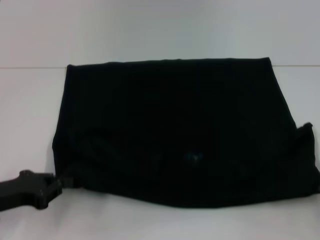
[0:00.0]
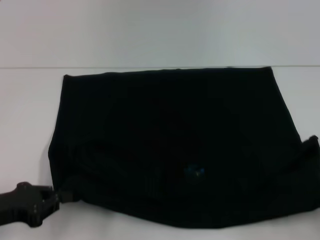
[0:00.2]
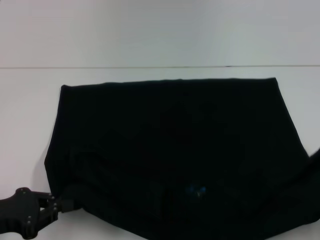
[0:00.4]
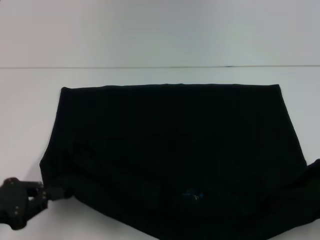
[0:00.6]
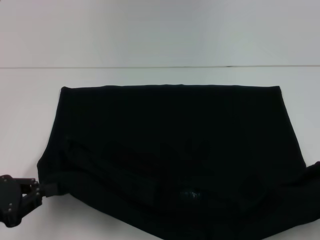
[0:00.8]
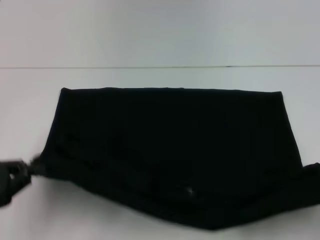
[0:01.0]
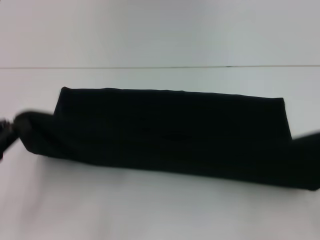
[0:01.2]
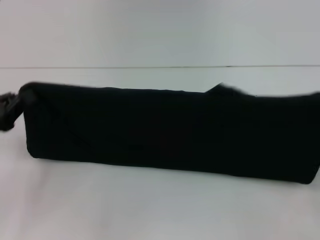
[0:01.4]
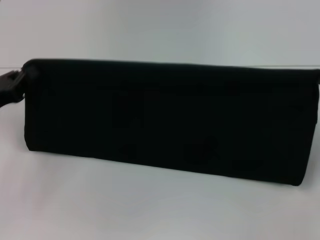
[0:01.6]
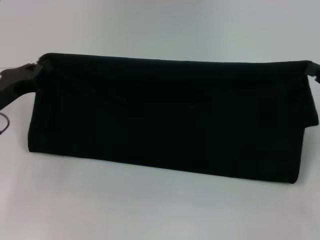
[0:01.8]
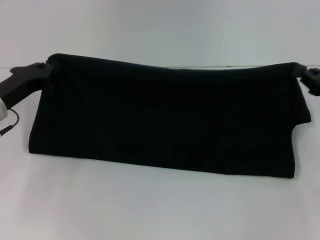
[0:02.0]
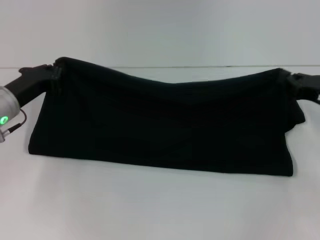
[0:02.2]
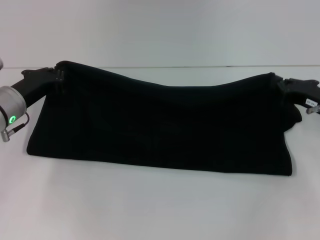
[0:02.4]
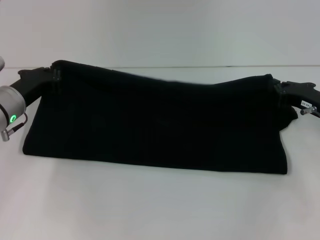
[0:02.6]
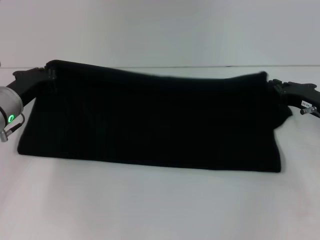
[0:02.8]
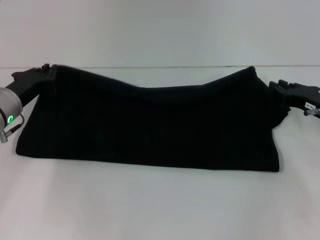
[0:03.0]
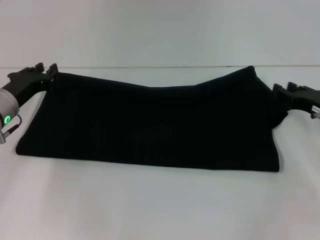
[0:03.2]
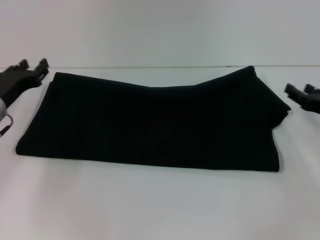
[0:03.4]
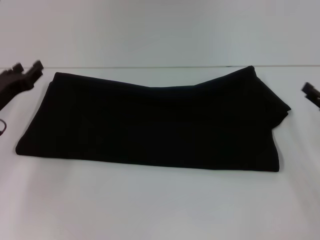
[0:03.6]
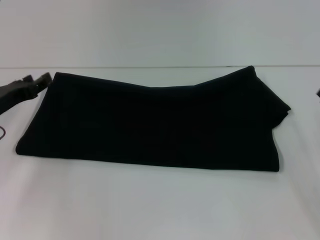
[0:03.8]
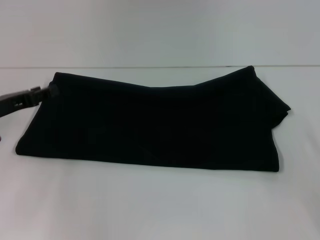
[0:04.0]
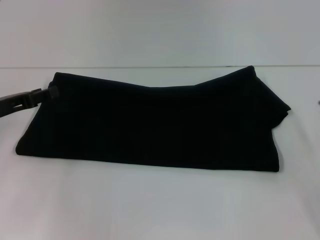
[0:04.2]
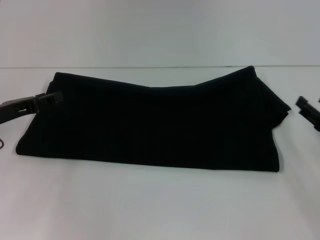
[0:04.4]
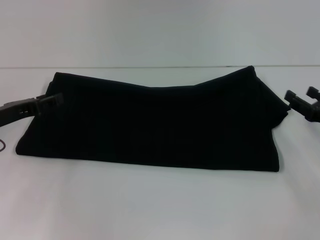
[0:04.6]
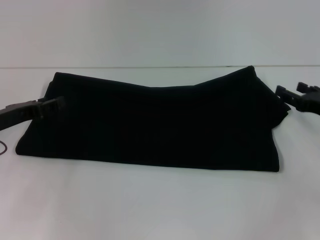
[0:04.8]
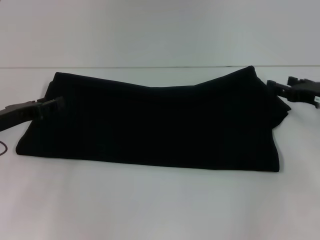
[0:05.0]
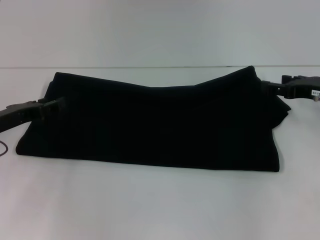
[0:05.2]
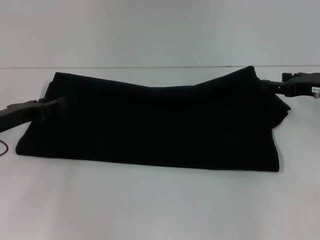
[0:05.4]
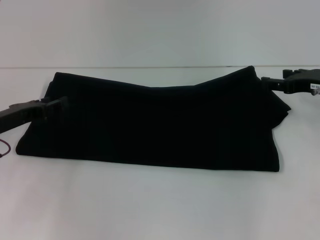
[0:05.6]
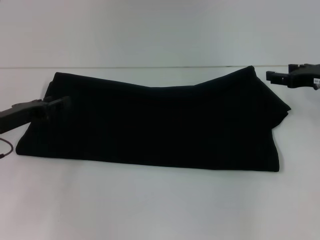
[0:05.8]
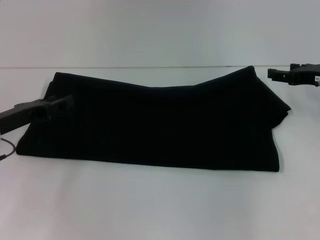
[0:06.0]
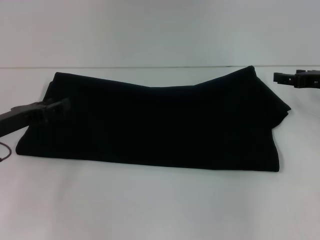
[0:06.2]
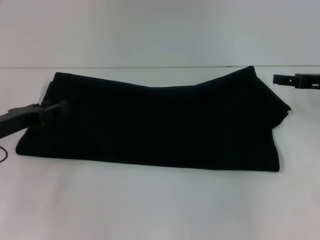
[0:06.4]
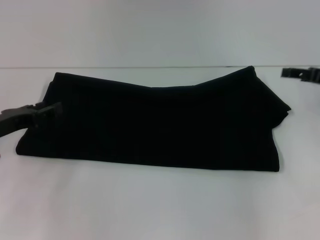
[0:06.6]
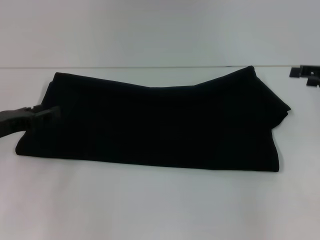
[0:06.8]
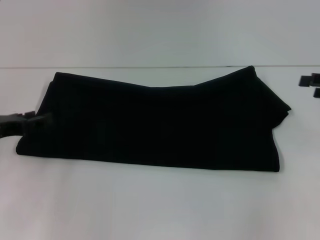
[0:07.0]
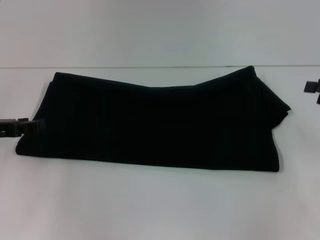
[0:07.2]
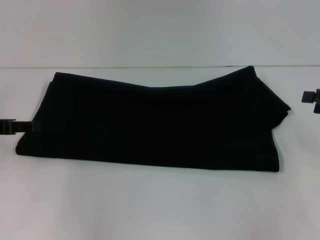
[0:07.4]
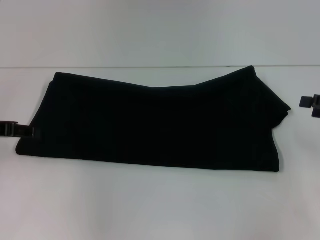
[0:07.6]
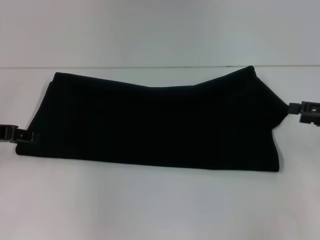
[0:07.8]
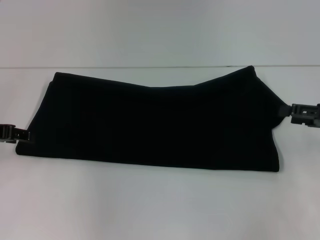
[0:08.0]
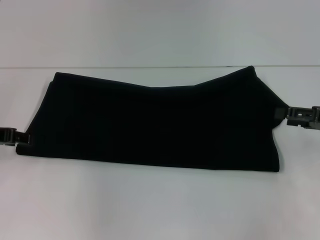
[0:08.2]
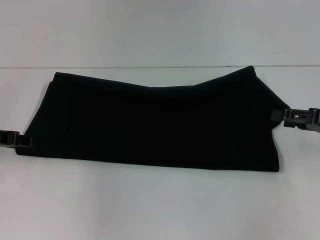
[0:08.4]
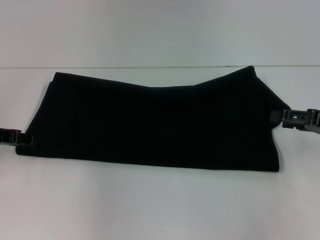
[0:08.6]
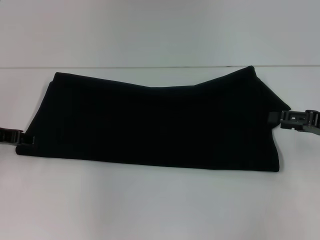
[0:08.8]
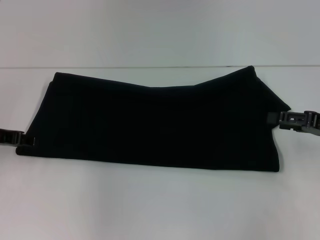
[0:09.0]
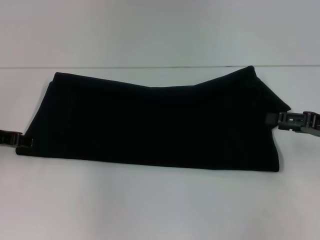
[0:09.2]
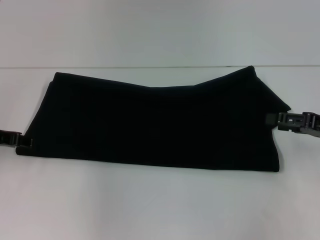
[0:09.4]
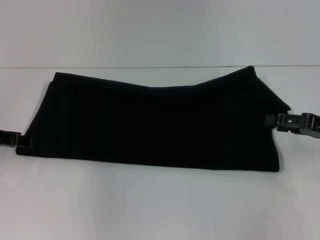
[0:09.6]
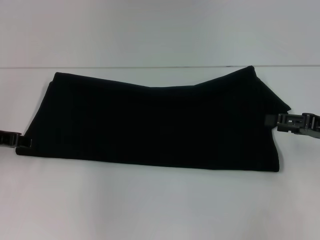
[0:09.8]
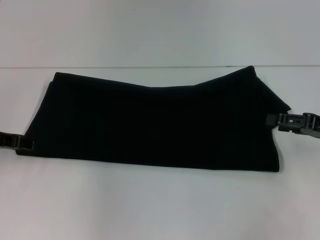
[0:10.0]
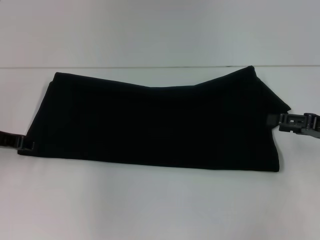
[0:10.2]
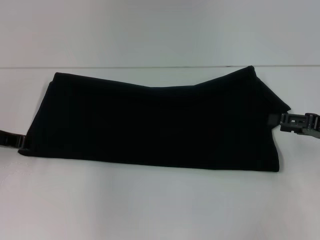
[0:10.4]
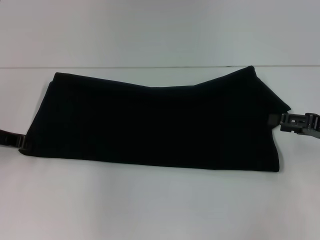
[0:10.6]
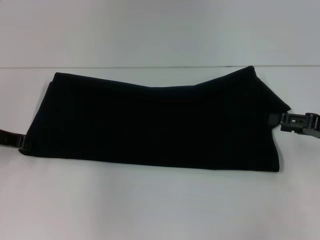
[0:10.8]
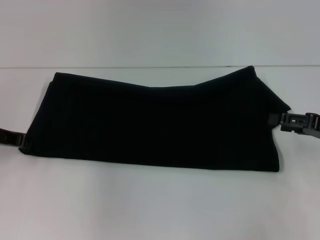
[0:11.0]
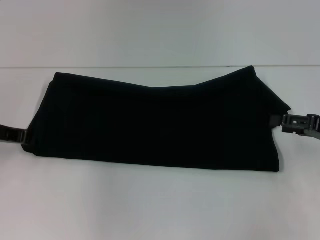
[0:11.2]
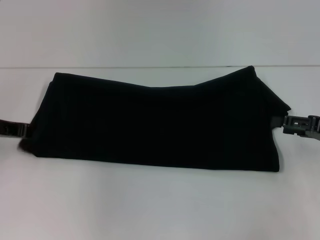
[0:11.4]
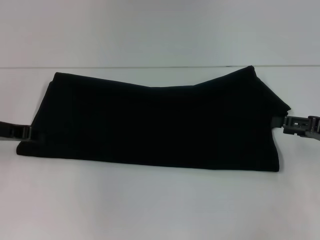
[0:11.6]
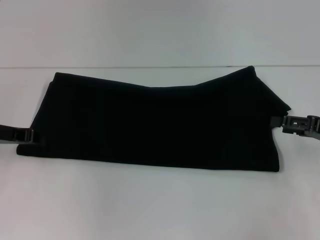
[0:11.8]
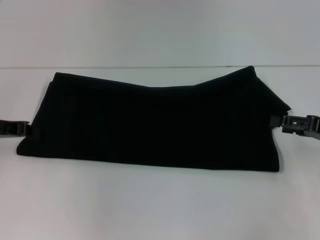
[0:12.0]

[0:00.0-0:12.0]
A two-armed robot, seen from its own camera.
Step, 0:00.4 to 0:03.2: Fold the clothes with your right hand.
0:00.0 to 0:01.6: The right gripper travels forward and upward by about 10 cm, while the left gripper is displaced forward by some 5 cm.
0:01.6 to 0:03.0: The right gripper goes about 10 cm to the left, forward and downward; the left gripper travels forward and to the right by some 10 cm.
0:03.0 to 0:04.4: The right gripper goes about 5 cm backward, and opens. The left gripper ends up roughly 5 cm from where it was, and opens.
0:04.4 to 0:06.0: The right gripper goes about 15 cm forward and upward.
0:06.0 to 0:07.6: The right gripper goes roughly 10 cm backward and to the right, while the left gripper goes approximately 5 cm upward.
0:07.6 to 0:09.0: The grippers stay close to where they were, moving slightly.
0:09.0 to 0:10.4: Neither gripper changes place.
0:10.4 to 0:12.0: The left gripper closes its fingers.

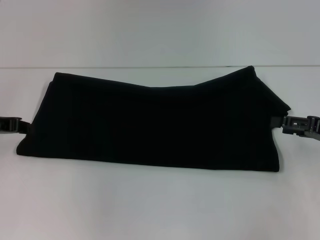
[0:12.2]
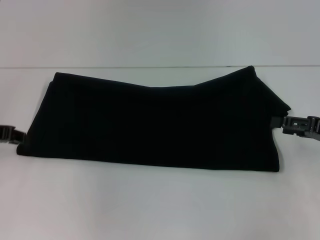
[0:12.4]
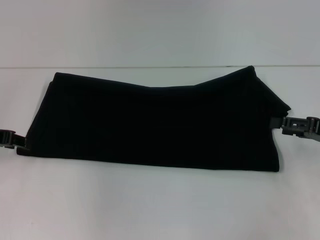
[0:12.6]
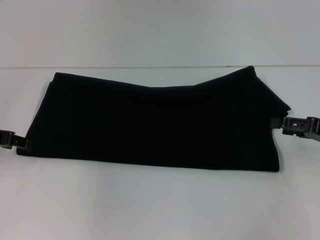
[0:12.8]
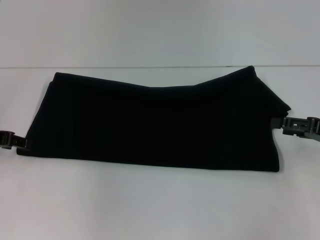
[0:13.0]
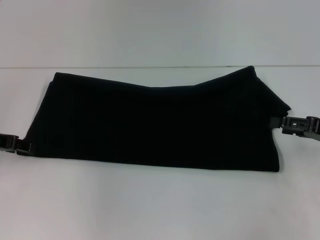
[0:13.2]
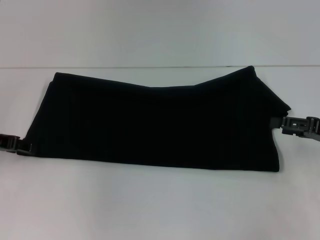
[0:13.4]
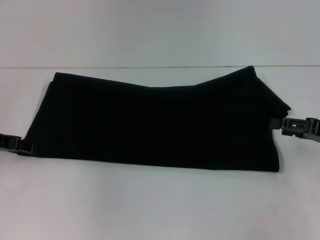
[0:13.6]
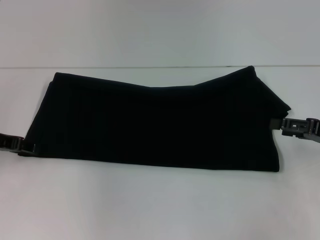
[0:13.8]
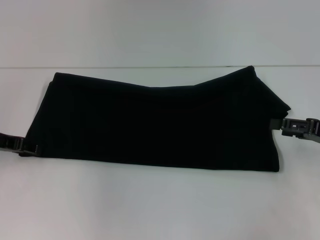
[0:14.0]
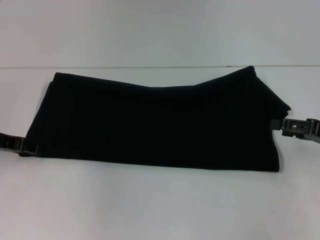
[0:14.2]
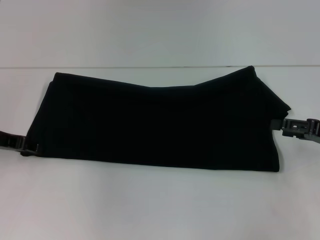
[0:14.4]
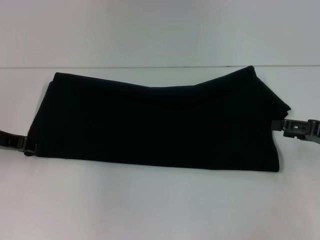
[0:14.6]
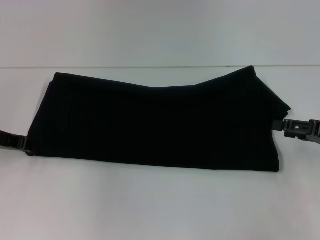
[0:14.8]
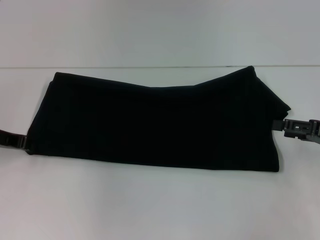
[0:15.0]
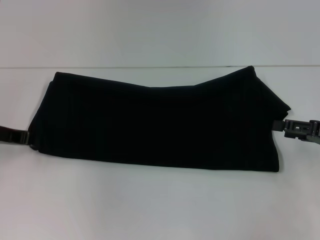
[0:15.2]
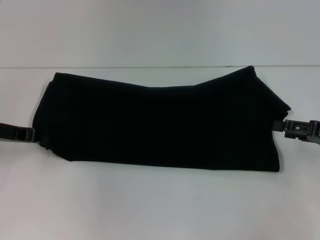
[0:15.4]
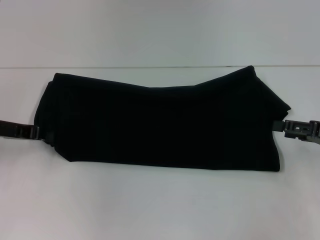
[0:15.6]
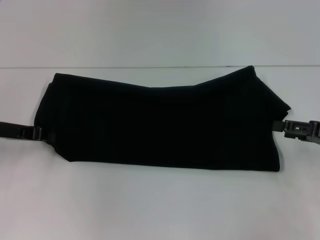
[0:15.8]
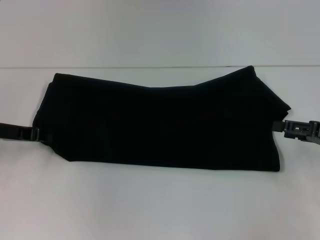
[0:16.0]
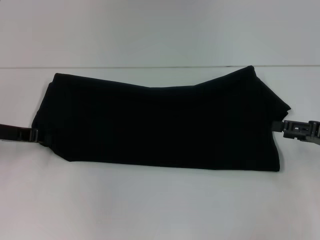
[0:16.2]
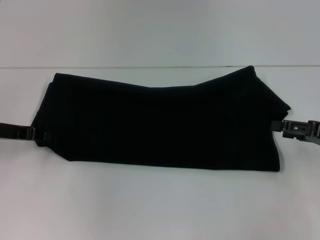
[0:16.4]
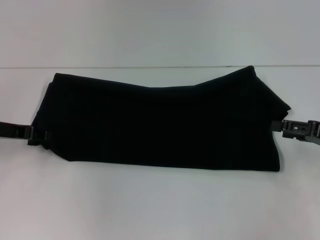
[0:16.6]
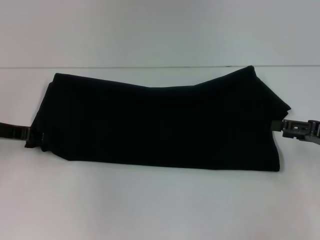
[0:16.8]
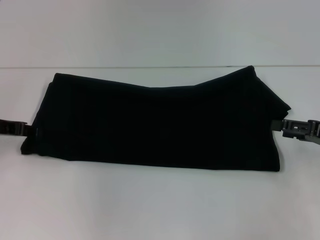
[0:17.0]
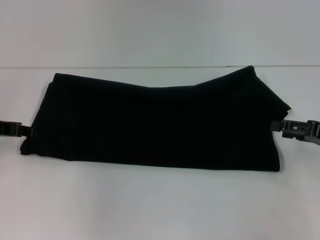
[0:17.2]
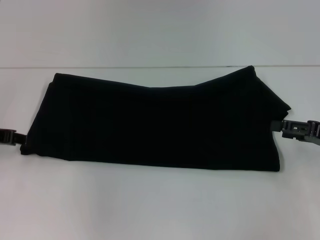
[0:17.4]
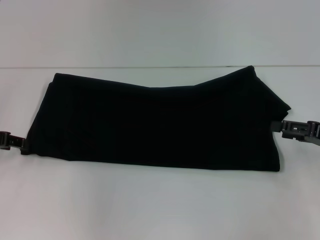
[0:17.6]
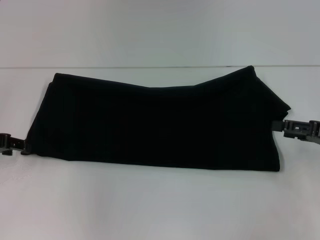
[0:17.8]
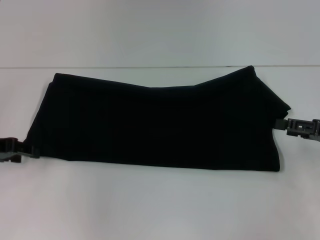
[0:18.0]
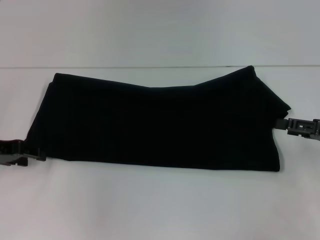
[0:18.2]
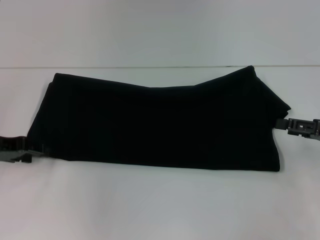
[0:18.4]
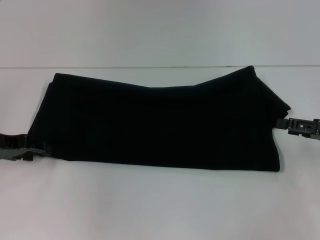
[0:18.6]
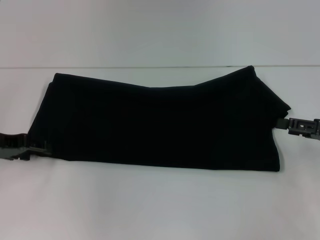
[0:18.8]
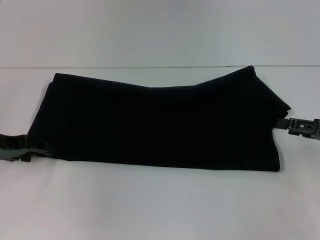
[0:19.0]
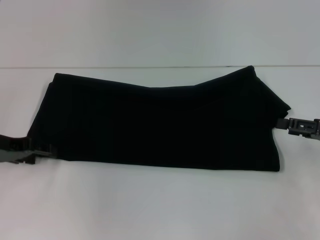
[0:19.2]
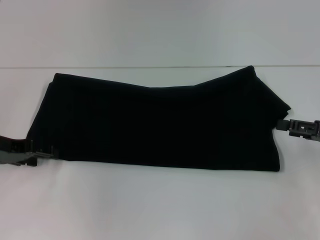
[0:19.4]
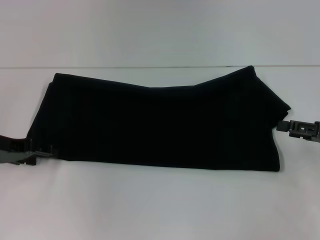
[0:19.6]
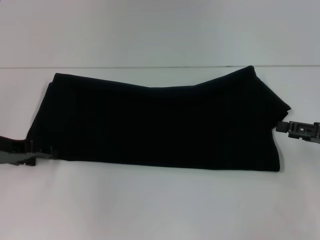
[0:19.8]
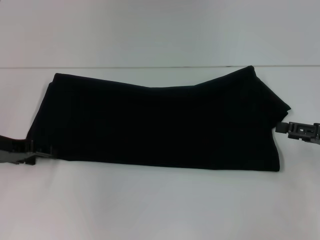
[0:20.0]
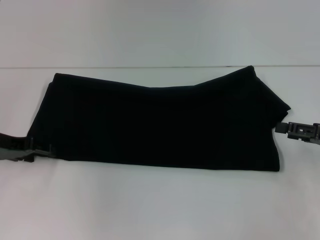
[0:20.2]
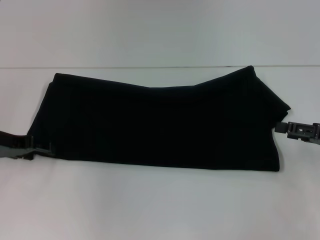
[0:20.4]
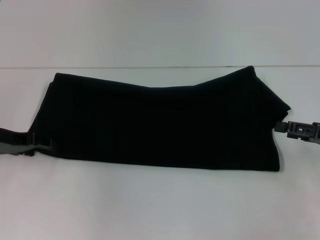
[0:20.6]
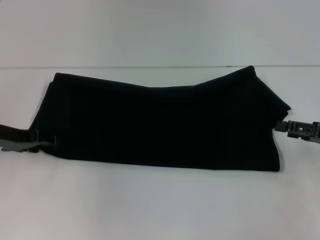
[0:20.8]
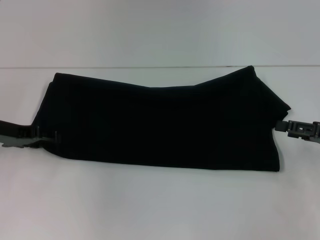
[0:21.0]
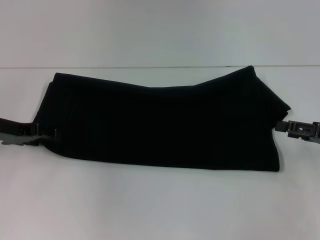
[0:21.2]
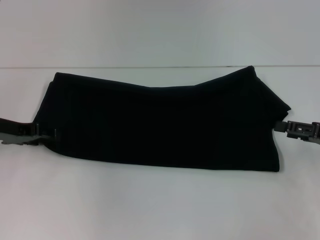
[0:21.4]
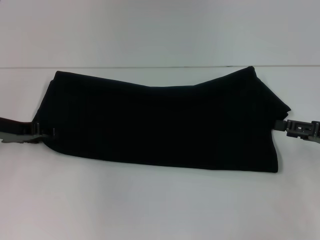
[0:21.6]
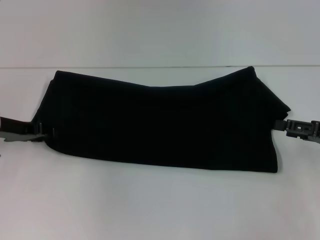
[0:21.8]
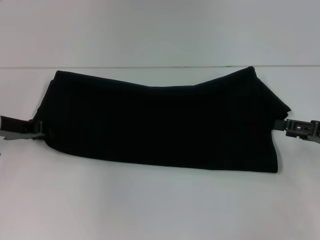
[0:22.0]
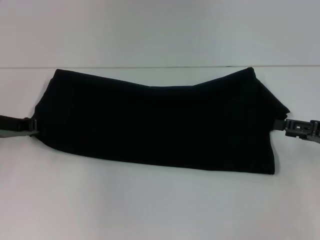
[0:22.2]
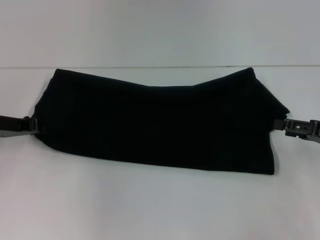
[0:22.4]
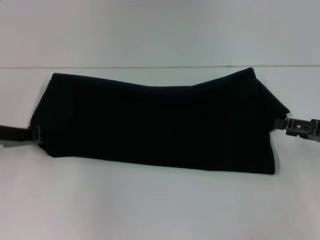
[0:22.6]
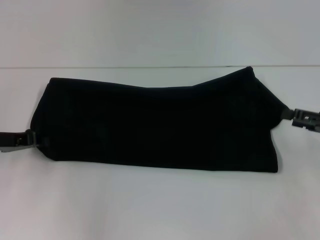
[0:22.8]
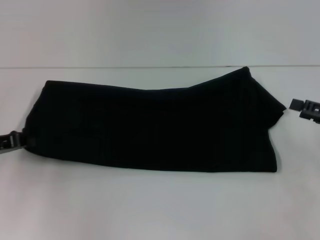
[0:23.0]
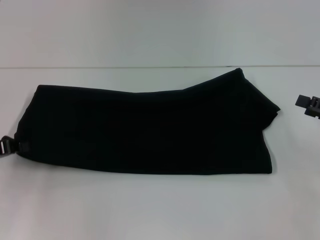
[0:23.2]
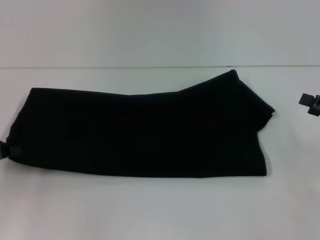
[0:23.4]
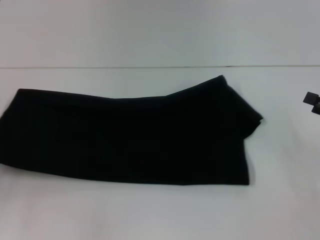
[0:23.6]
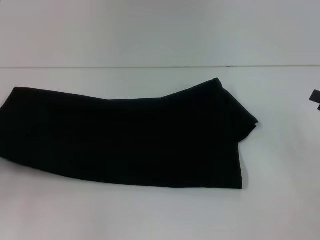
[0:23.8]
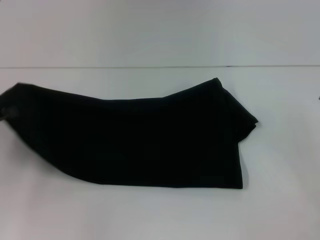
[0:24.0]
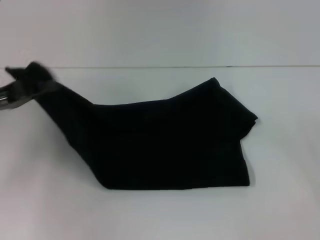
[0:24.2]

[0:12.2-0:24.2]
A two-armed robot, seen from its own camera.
0:12.2 to 0:13.8: The left gripper opens up.
0:13.8 to 0:15.2: The left gripper closes up.
0:15.2 to 0:16.6: The grippers stay close to where they were, moving slightly.
0:16.6 to 0:18.2: The left gripper opens up.
0:18.2 to 0:21.2: The grippers make only small movements.
0:21.2 to 0:22.6: The left gripper closes up.
0:22.6 to 0:24.2: The left gripper travels upward by some 5 cm. The right gripper heads to the right, covering approximately 5 cm.
